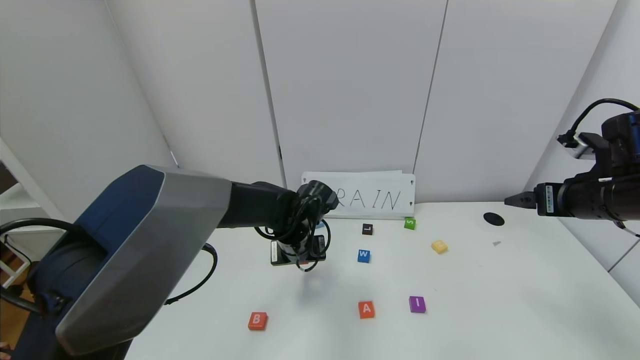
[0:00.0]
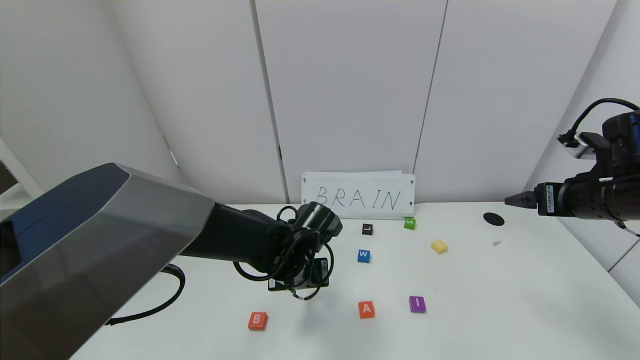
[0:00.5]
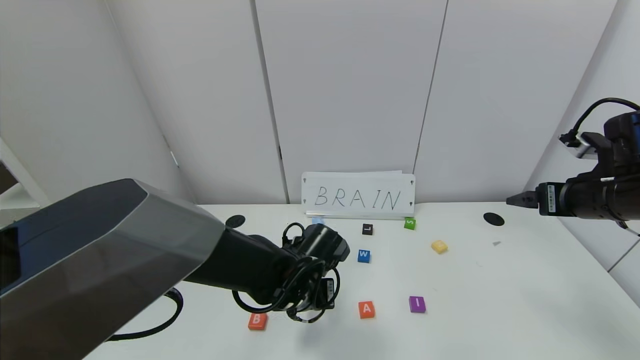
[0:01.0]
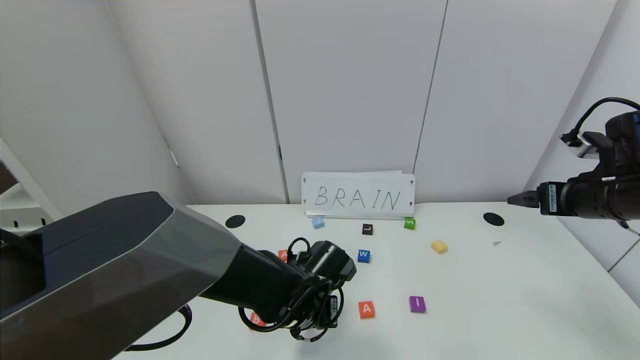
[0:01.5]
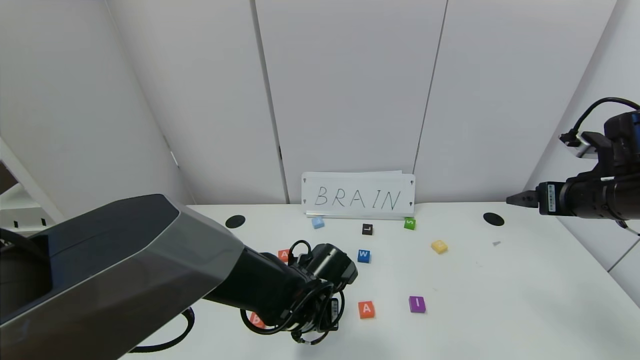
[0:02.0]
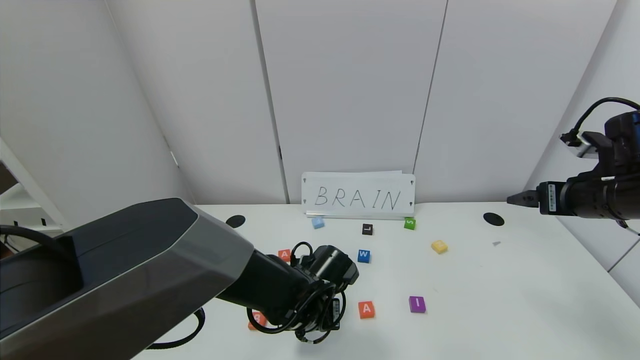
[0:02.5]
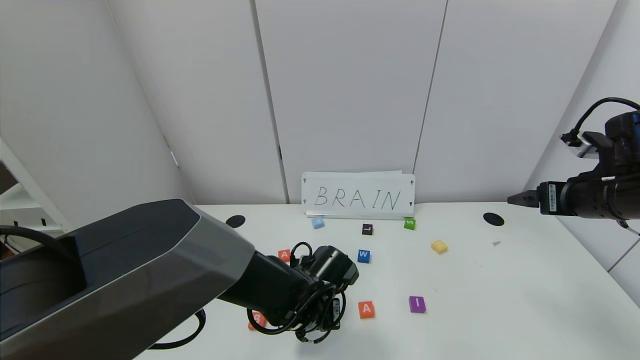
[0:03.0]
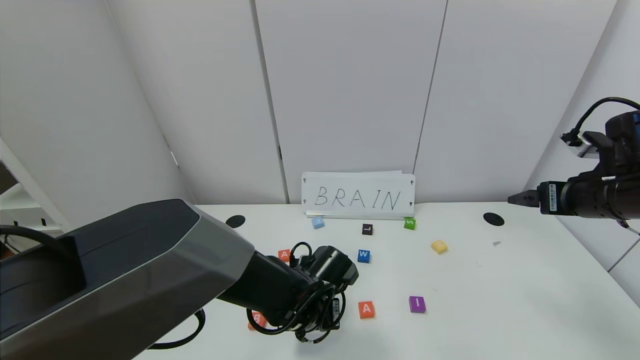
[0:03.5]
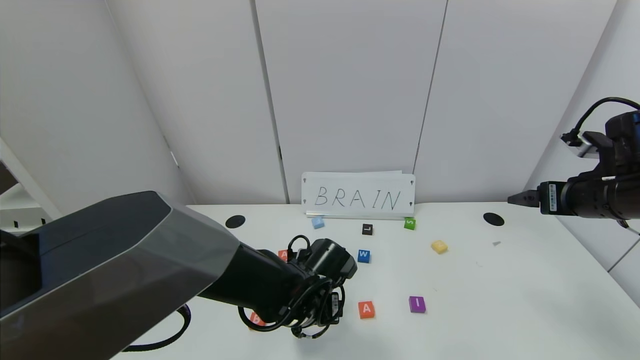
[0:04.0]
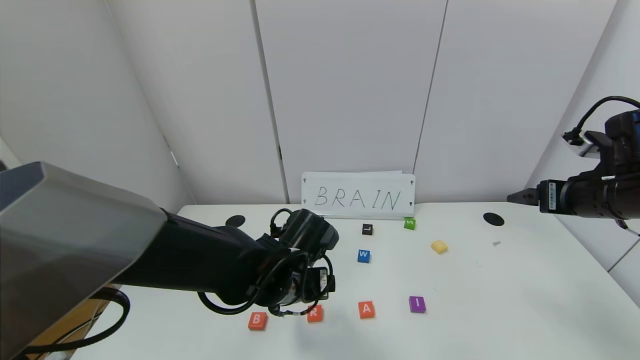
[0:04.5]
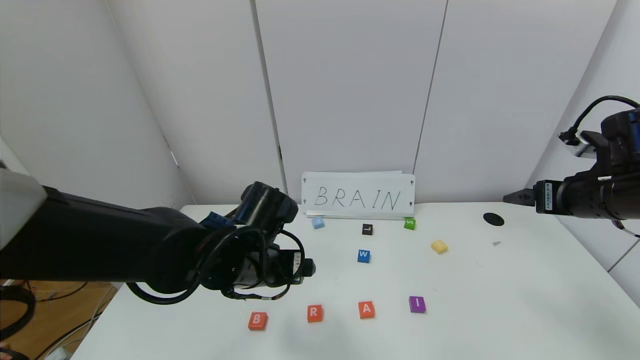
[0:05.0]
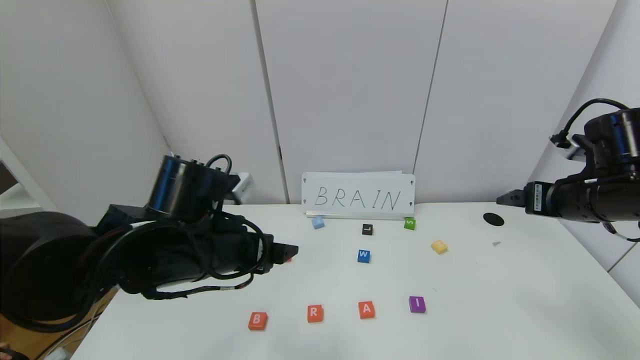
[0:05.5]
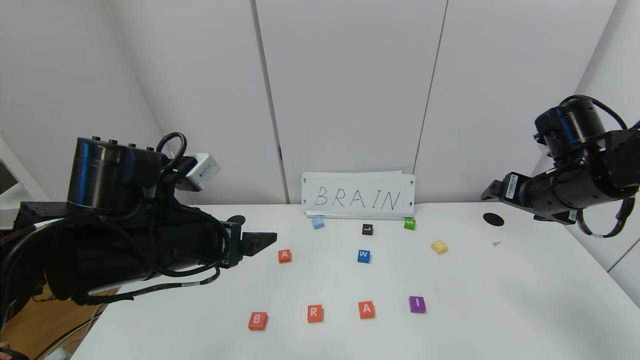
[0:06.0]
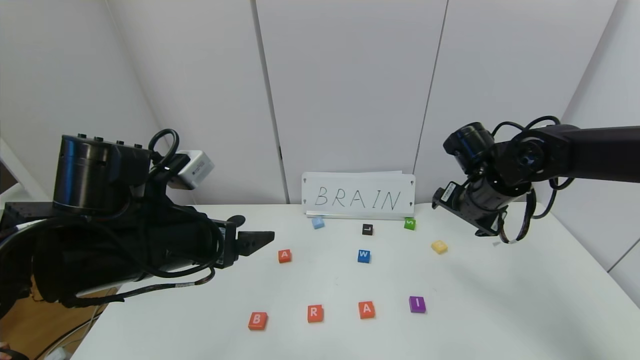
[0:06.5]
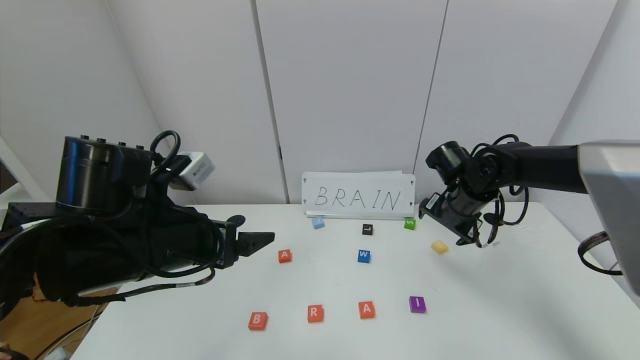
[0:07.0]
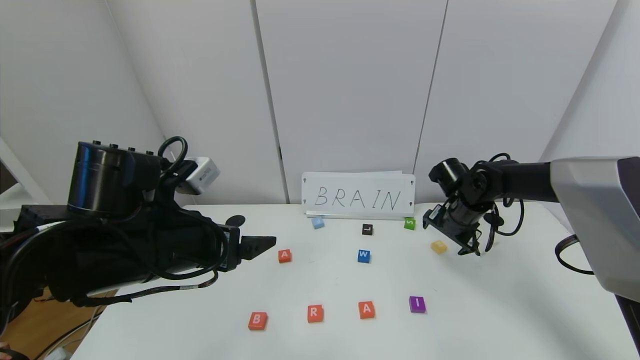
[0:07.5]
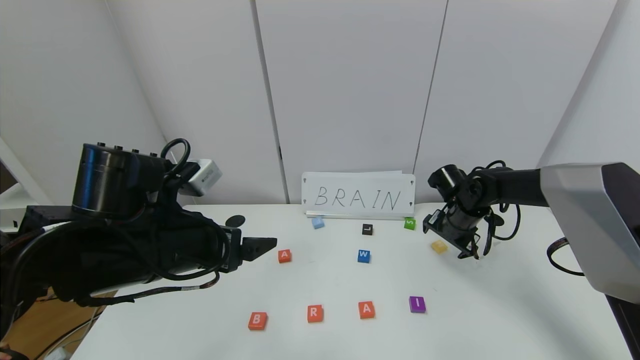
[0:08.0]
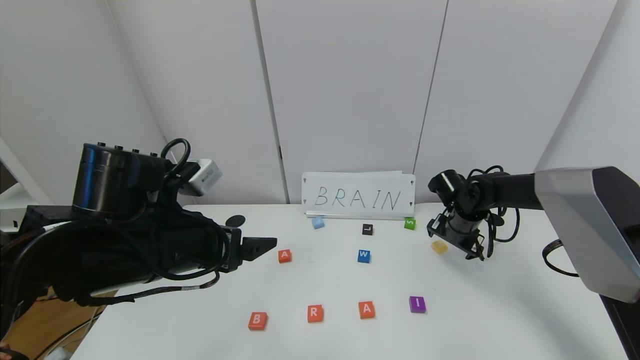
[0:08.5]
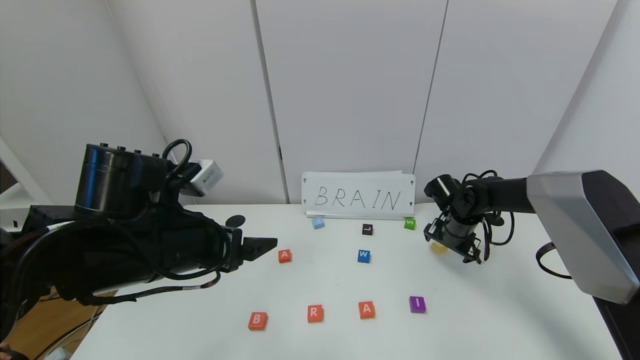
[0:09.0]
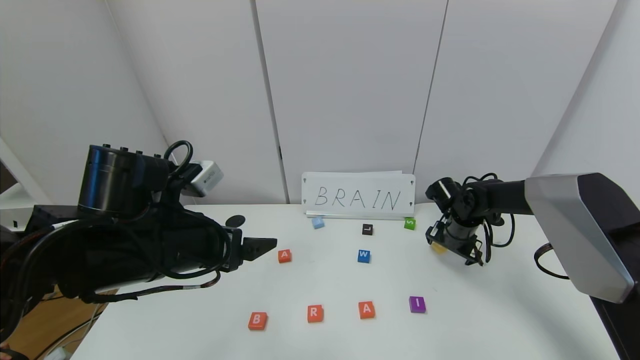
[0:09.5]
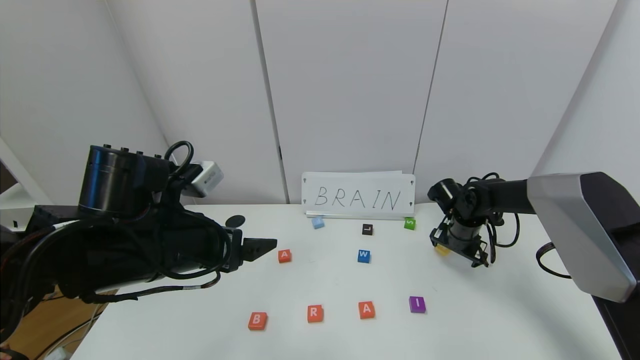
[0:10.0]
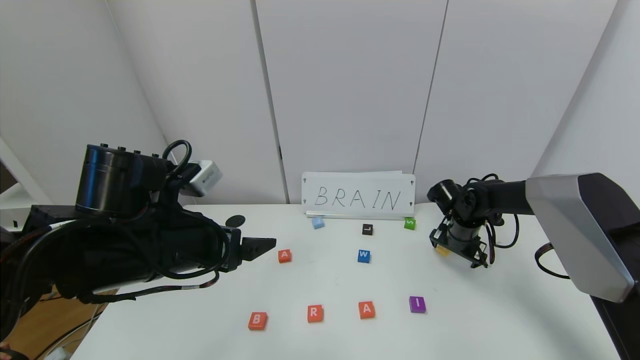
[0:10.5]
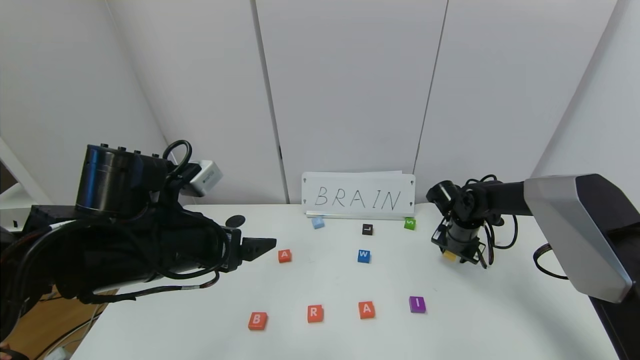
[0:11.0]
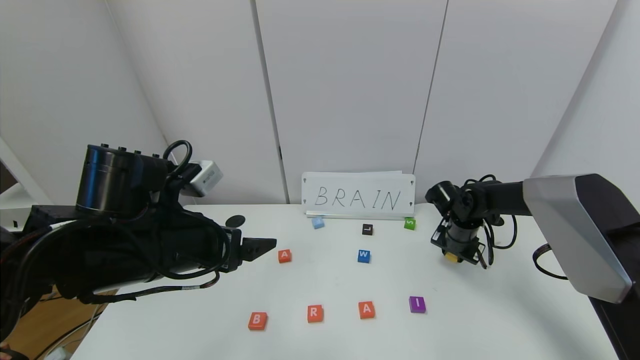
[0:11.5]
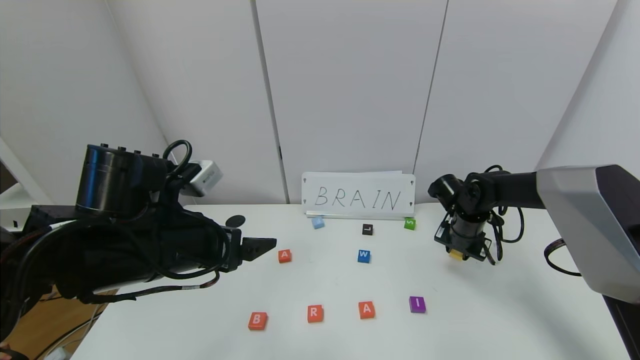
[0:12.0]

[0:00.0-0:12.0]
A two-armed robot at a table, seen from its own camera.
Task of the whole recording: use the gripper to find blocks with the letters b, a, a, and i on the table and arrange them into BAAI, then find r and N and turn the arranged baai into brian.
Step, 0:00.0 to 0:03.5: Place the block R in the second location.
0:00.0 to 0:02.0: The left gripper goes about 10 cm backward.
0:02.0 to 0:04.0: The left gripper opens its fingers.
0:04.0 to 0:06.0: The left gripper goes about 20 cm upward and to the left; the right gripper heads to the left, covering about 5 cm.
0:06.0 to 0:08.0: The right gripper is displaced downward, forward and to the left by roughly 20 cm.
0:08.0 to 0:10.0: The grippers move only a little.
0:10.0 to 0:12.0: The right gripper closes.

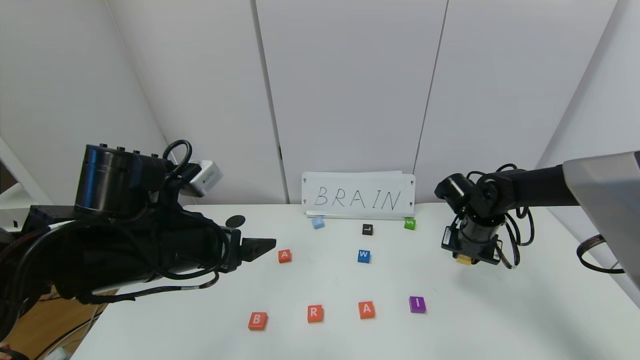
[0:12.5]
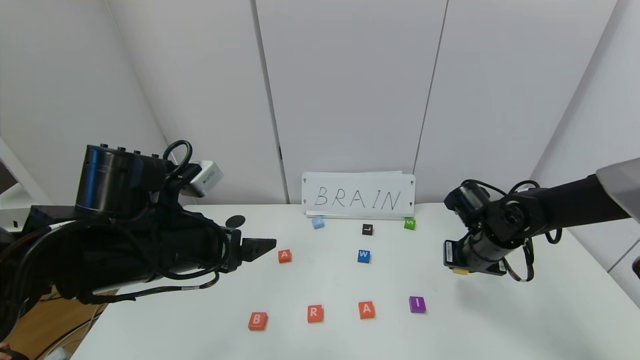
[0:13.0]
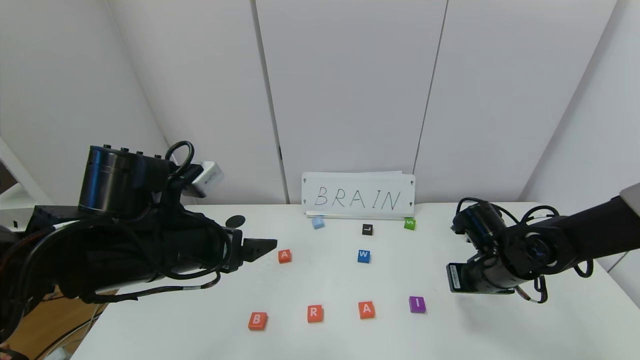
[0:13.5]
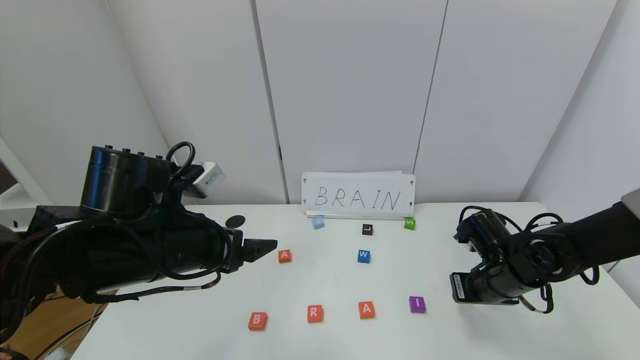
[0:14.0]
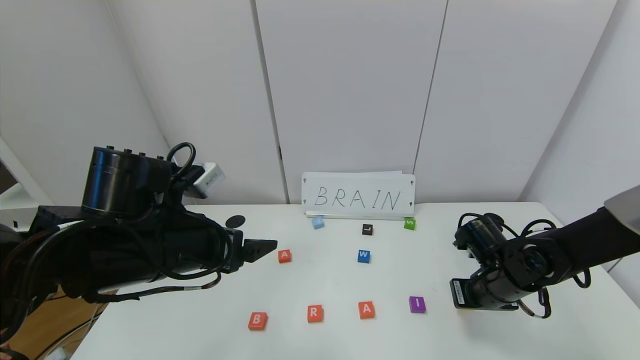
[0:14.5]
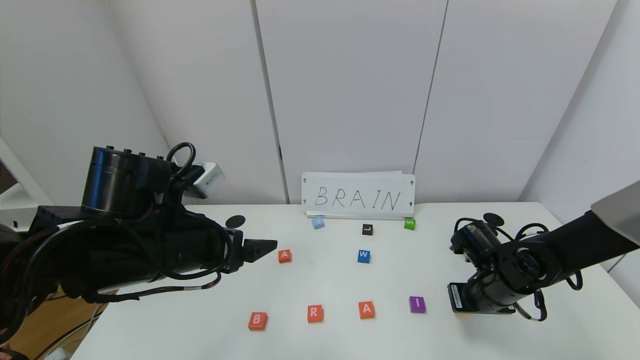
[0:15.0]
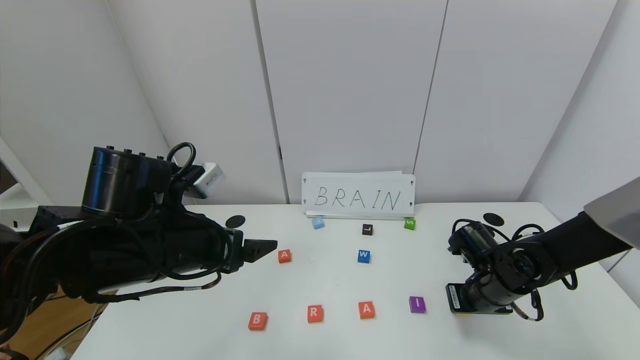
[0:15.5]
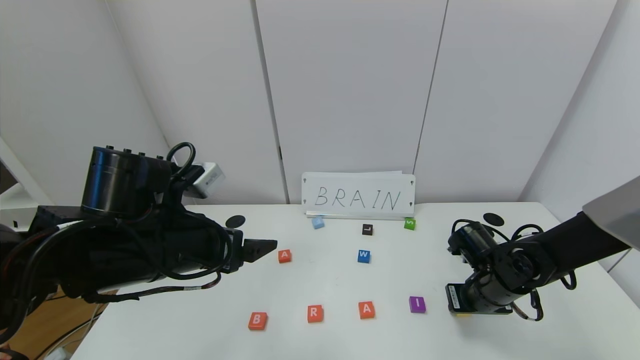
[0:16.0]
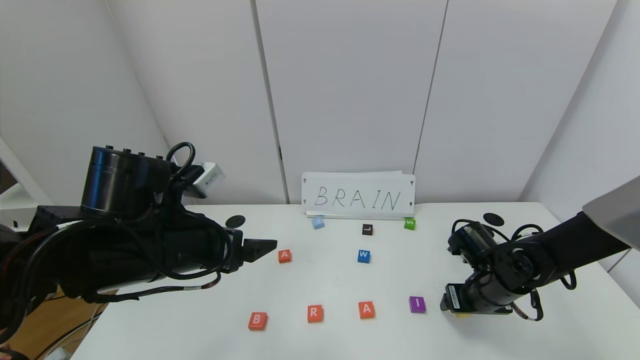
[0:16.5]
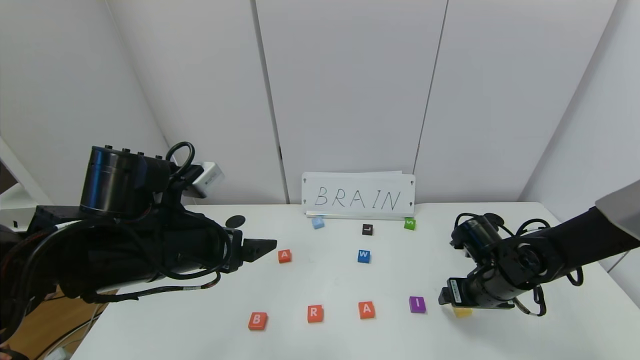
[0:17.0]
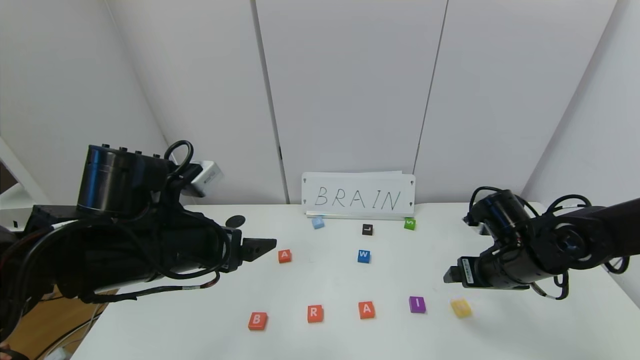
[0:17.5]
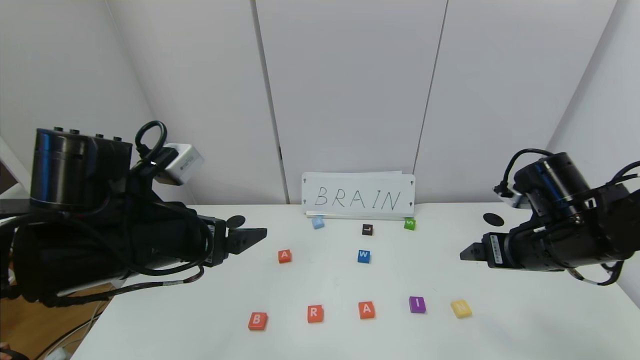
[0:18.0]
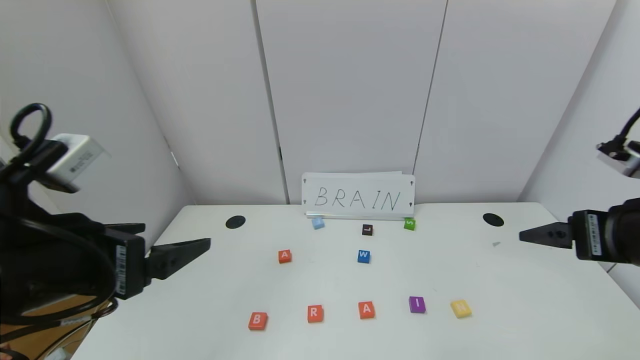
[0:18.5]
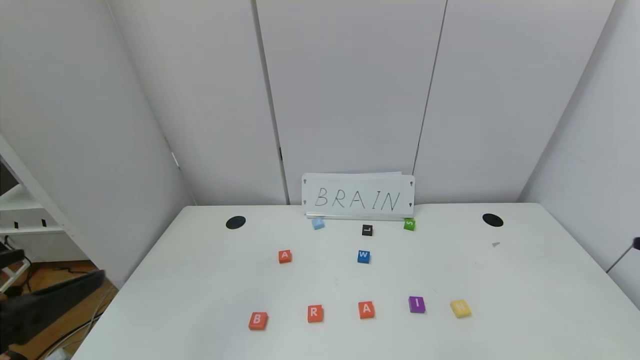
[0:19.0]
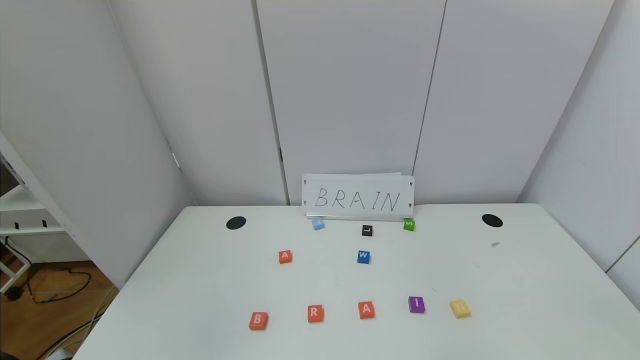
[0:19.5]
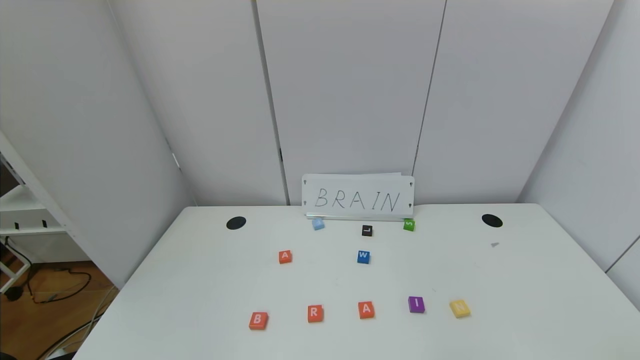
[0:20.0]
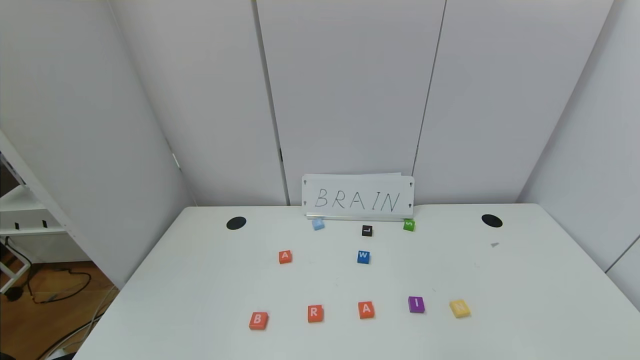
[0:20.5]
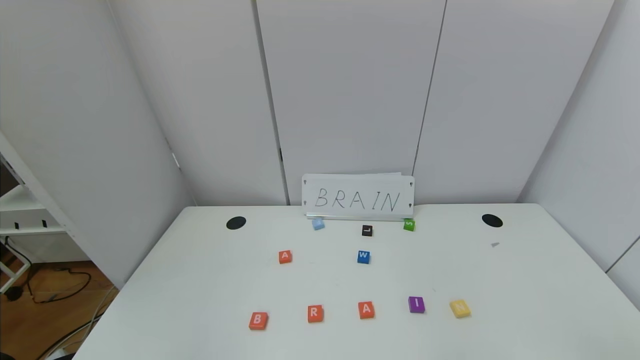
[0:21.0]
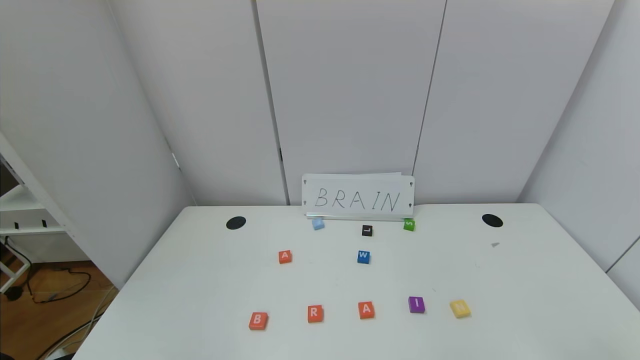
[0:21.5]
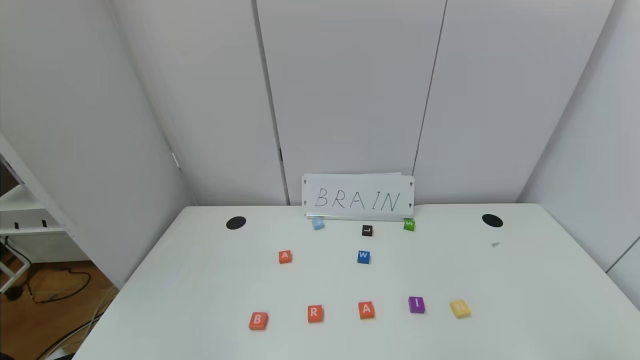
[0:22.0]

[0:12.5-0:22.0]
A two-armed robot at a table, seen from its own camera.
Task of the whole recording: use the gripper to find blocks with the letters b, a, a, and i on the table and arrange them into BAAI, then find r and N and turn the arranged baai into brian.
Step, 0:12.5 to 0:16.0: Place the block N in the fifth location.
0:12.5 to 0:14.5: The right gripper moves backward, about 10 cm.
0:14.5 to 0:16.5: The right gripper opens its fingers.
0:16.5 to 0:18.0: The right gripper moves upward, roughly 15 cm.
0:18.0 to 0:20.0: The two grippers go some 35 cm backward.
